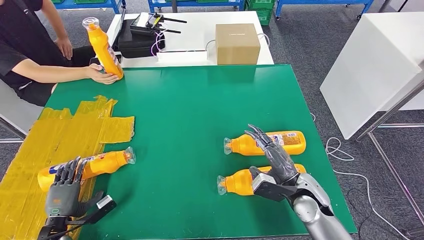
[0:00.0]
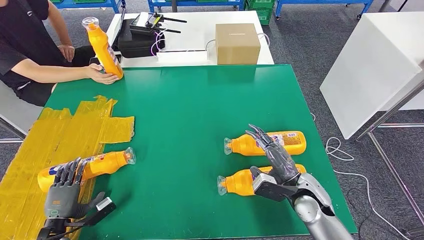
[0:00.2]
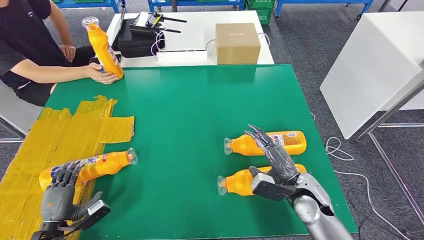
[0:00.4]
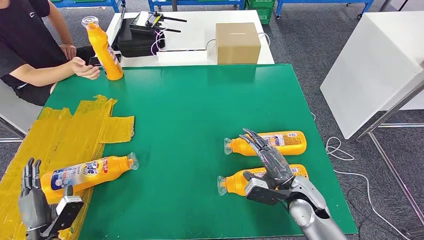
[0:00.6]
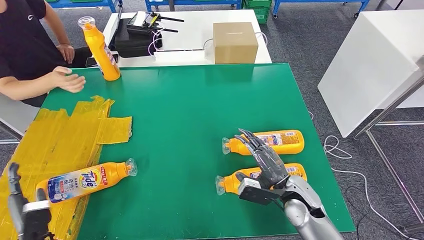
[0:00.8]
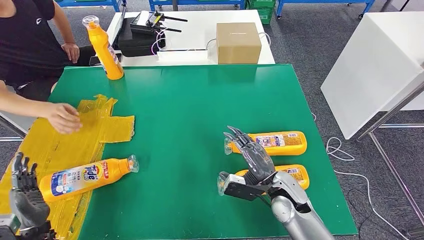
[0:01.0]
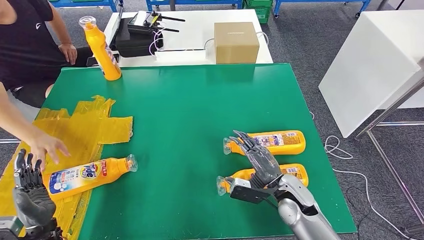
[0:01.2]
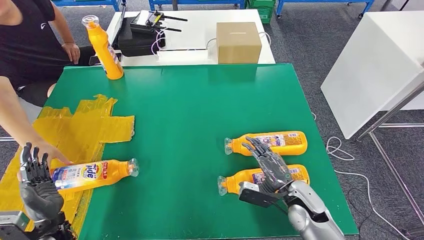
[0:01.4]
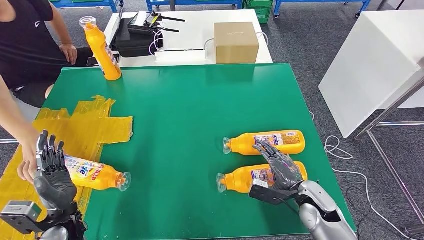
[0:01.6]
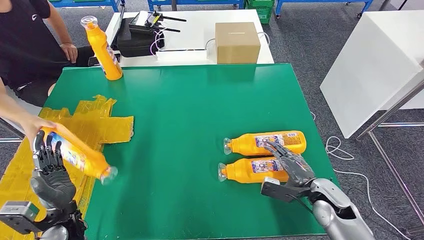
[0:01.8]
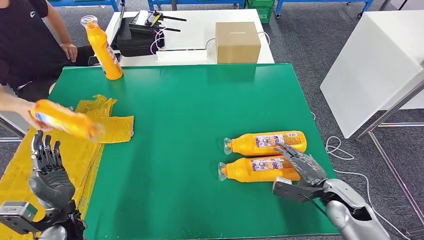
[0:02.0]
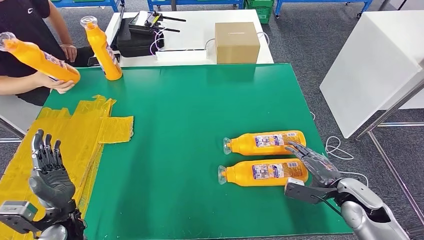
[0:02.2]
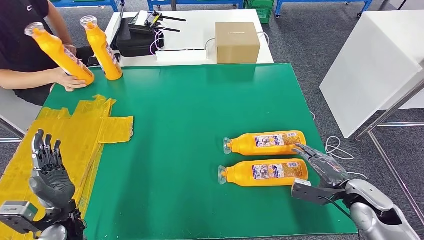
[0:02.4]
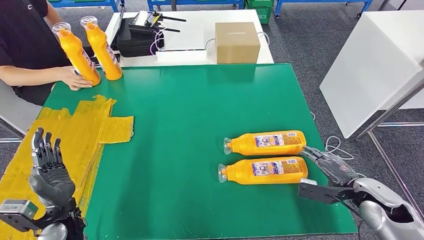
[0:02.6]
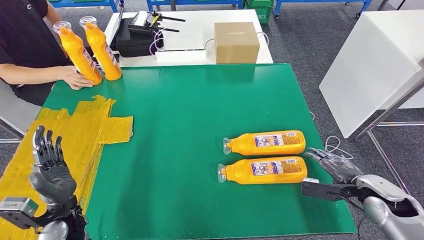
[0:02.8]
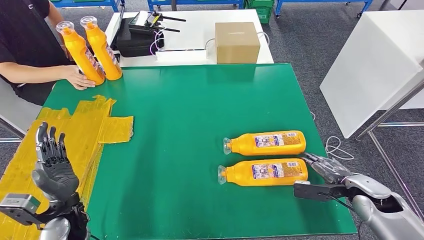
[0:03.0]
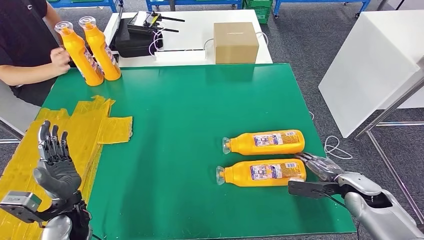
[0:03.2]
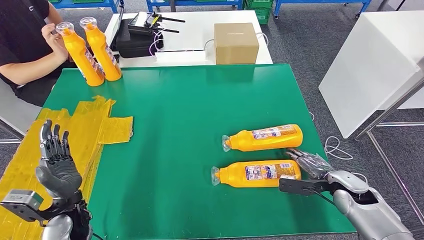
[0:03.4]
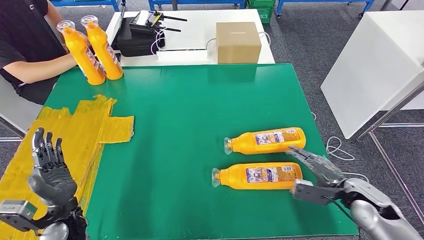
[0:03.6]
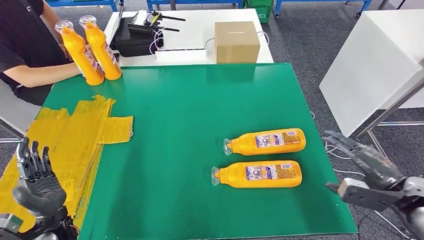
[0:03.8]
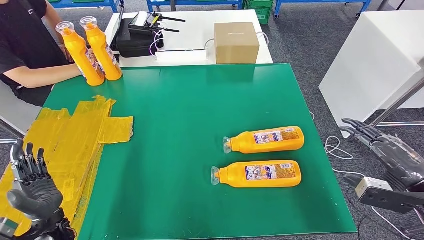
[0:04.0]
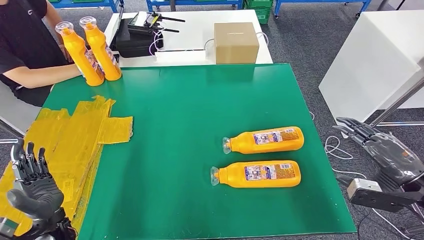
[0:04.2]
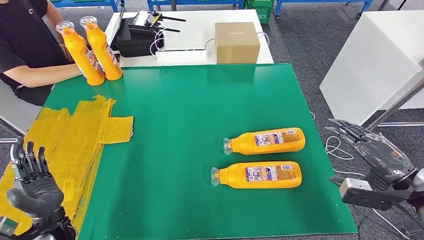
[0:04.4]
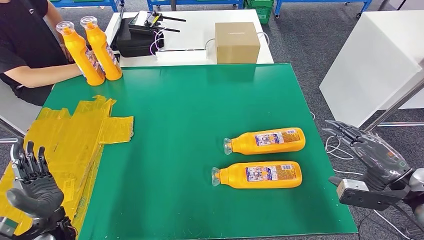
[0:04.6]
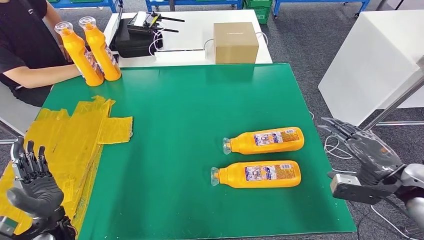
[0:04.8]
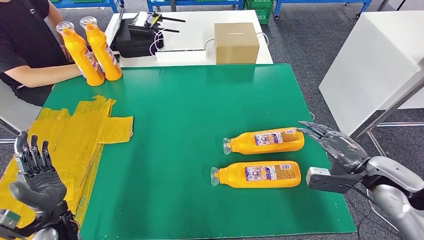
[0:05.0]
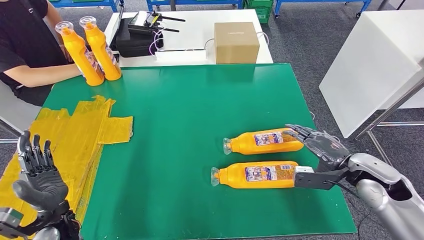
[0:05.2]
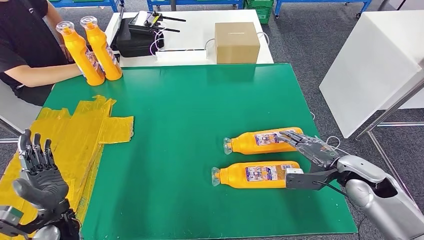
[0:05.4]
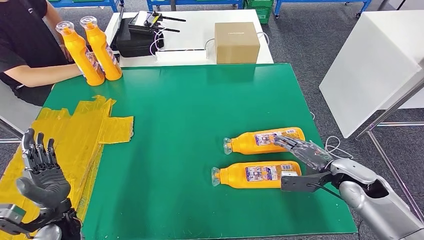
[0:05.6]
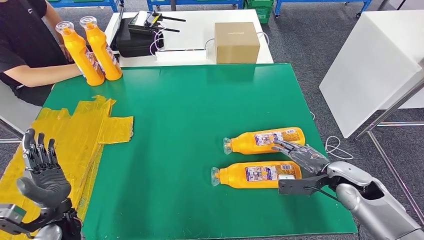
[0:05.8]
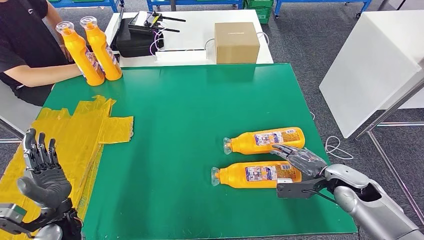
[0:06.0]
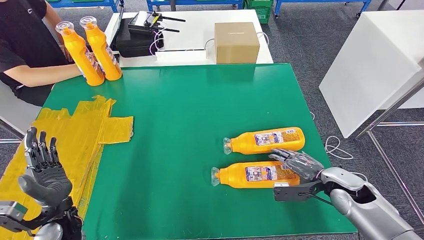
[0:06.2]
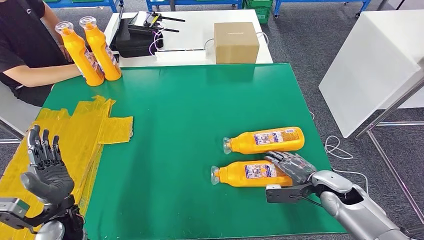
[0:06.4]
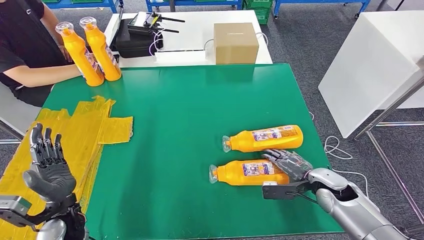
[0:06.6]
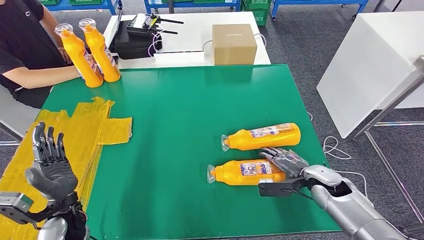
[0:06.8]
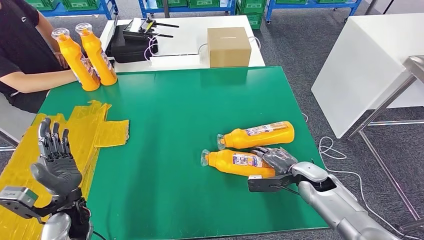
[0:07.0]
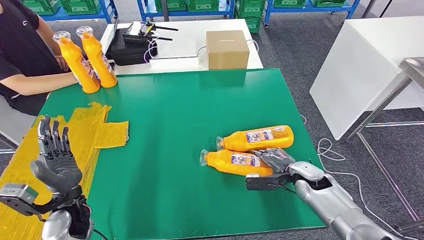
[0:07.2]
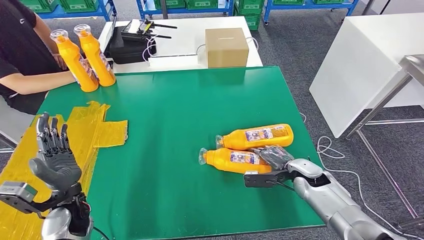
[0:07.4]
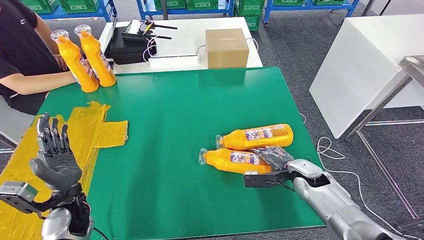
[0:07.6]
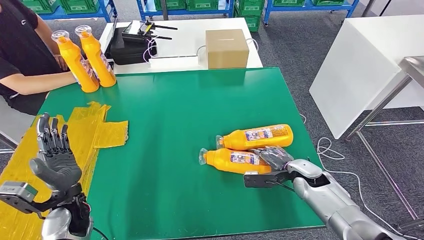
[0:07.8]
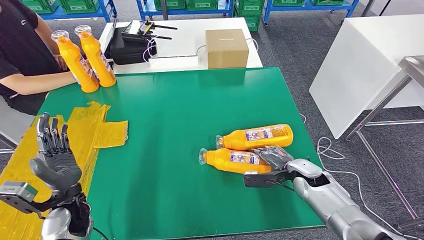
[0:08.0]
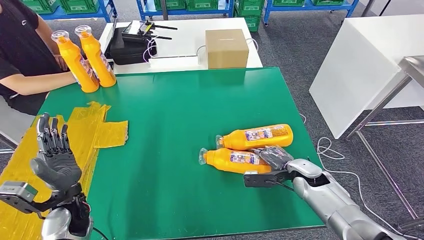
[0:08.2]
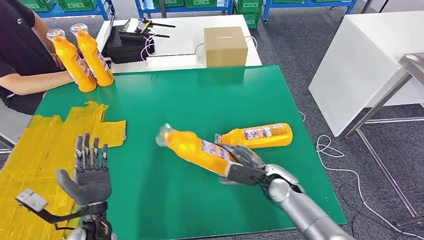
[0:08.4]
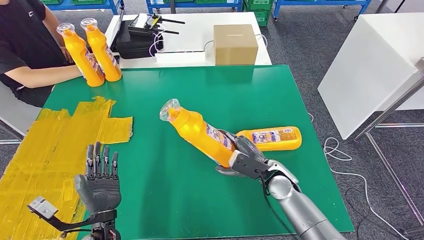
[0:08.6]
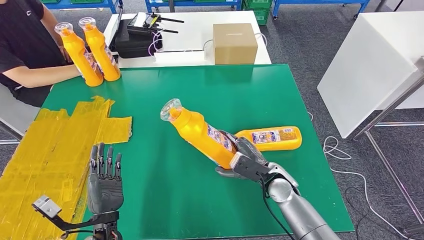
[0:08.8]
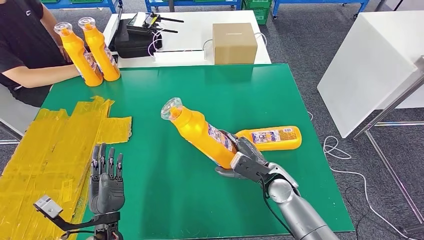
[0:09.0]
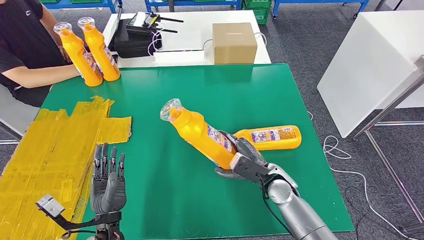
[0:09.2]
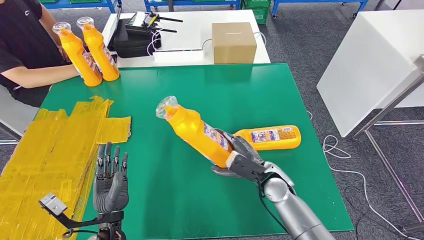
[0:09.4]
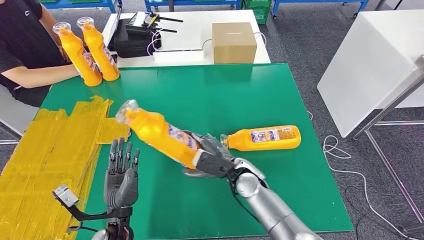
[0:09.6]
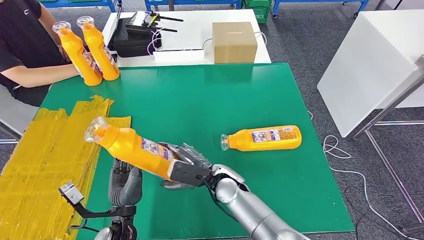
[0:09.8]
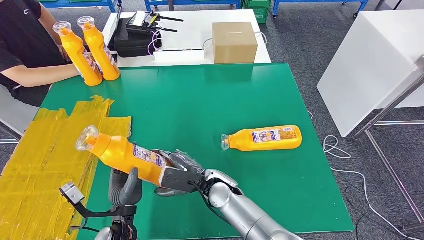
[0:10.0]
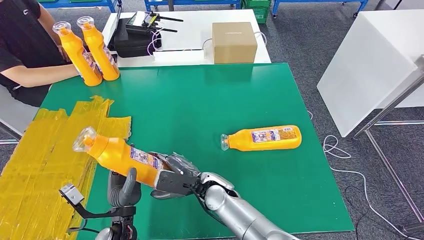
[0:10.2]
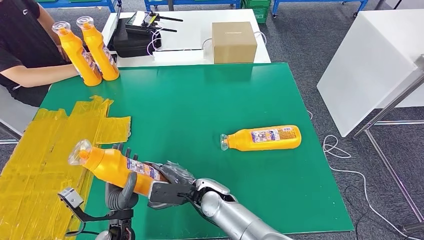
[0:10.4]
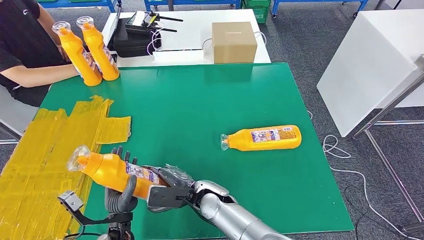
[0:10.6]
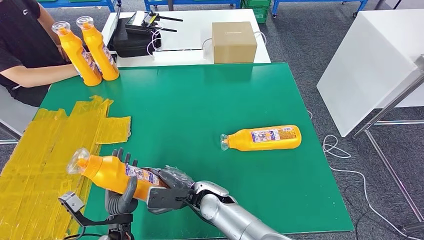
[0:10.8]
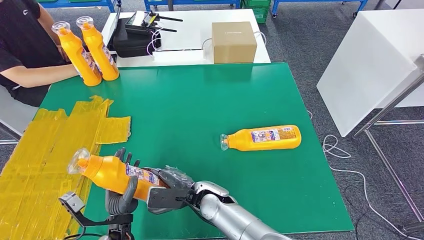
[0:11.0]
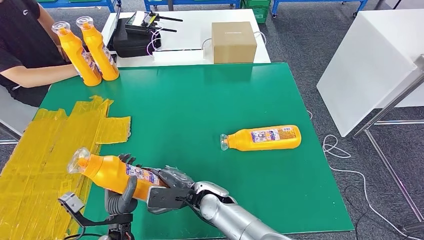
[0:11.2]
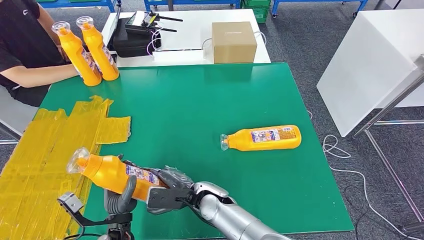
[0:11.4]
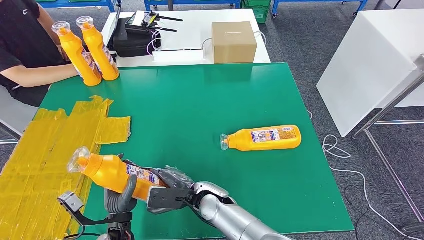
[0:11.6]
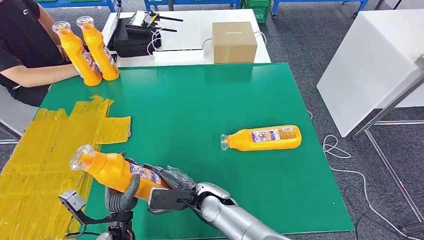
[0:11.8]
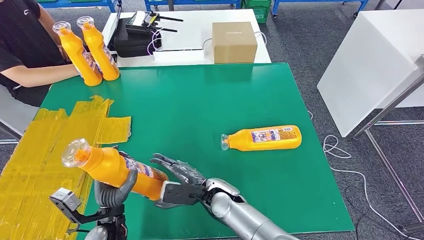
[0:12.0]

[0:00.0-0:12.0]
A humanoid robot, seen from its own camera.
Step, 0:01.4 to 0:10.4: Pick up the fast-moving consumer goods bottle from the table.
0:03.0 to 0:04.4: The right hand goes some 15 cm upward.
0:04.4 to 0:06.0: The right hand heads downward, to the left and forward, covering some 15 cm.
0:10.4 to 0:12.0: The hands stay close to where they were, moving slightly.

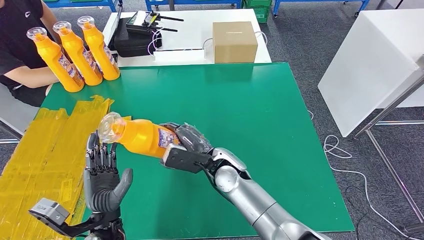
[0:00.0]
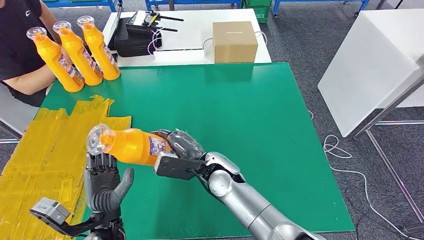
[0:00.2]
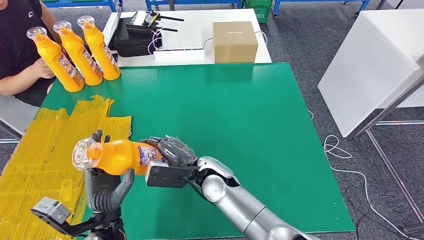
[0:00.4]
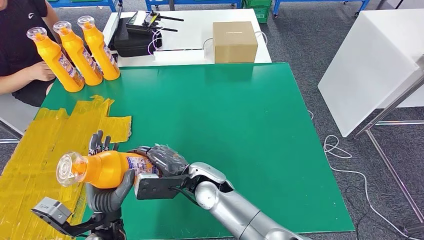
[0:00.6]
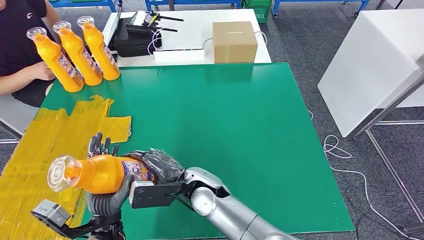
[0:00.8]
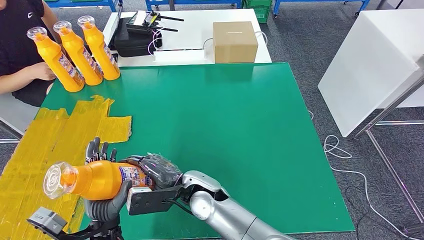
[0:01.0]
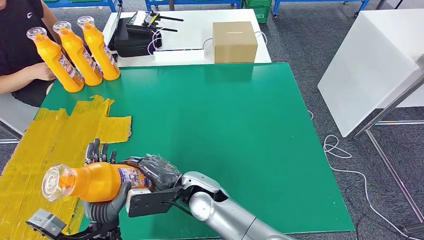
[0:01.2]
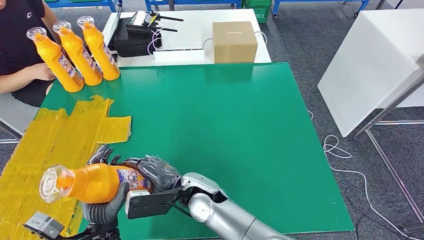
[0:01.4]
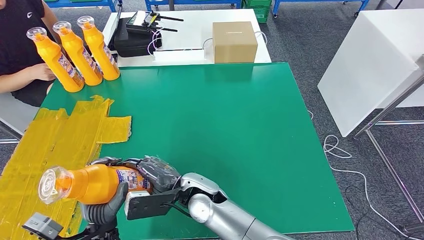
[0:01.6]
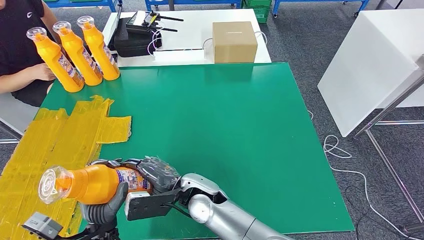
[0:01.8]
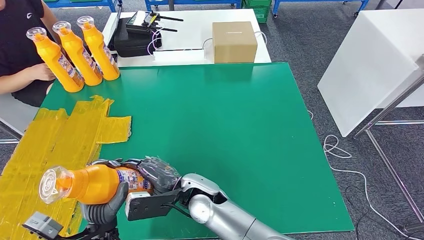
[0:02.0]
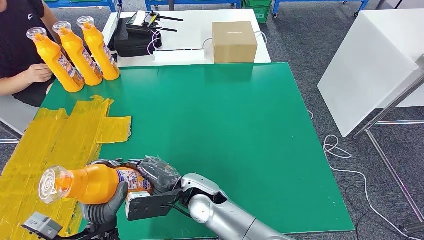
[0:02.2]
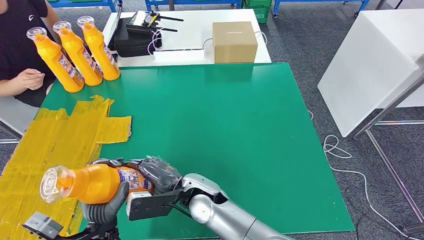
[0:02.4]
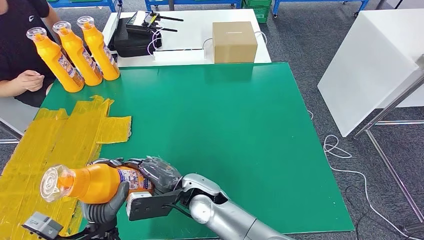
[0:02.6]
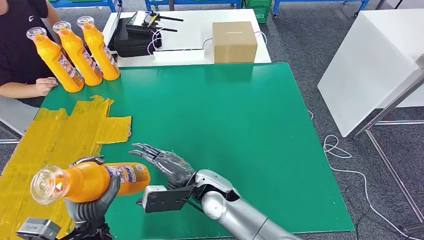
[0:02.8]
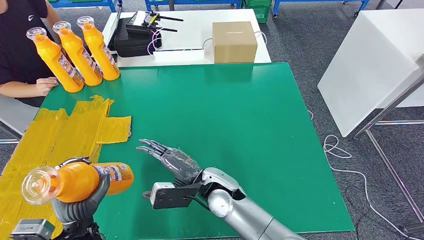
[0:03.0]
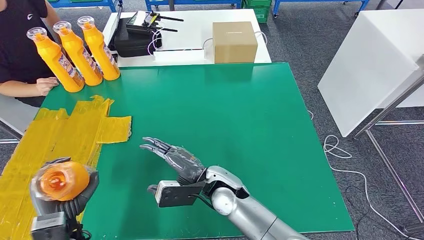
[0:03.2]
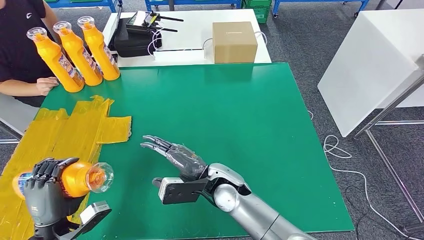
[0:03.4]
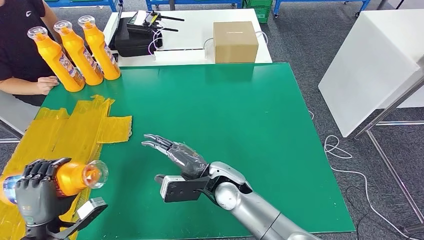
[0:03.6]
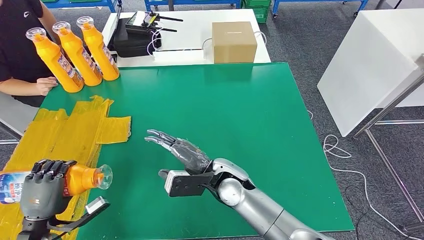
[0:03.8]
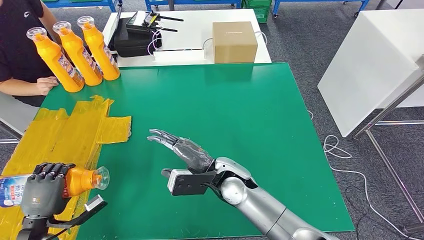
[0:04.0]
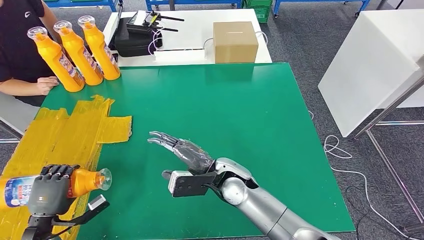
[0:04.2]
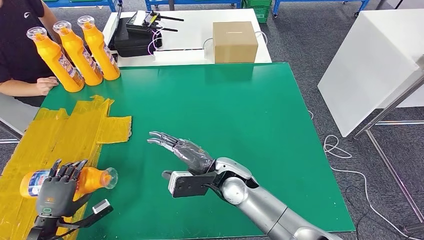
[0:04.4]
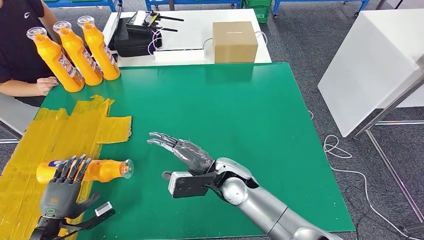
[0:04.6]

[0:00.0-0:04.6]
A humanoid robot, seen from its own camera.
Step, 0:00.6 to 0:04.6: Flip the fast-moving consumer goods bottle to the front side.
0:00.0 to 0:01.6: The right hand travels backward and to the left by some 10 cm.
0:01.6 to 0:03.0: The left hand changes place by about 5 cm, while the right hand ends up about 5 cm from where it was.
0:03.0 to 0:04.6: The left hand shifts some 15 cm to the left and downward.
